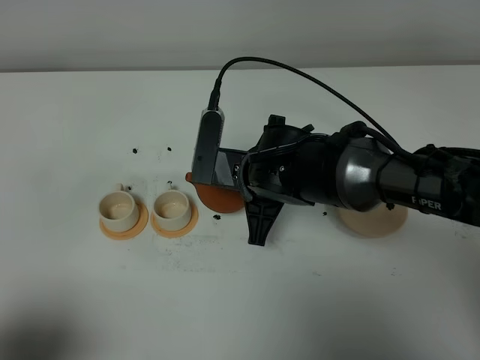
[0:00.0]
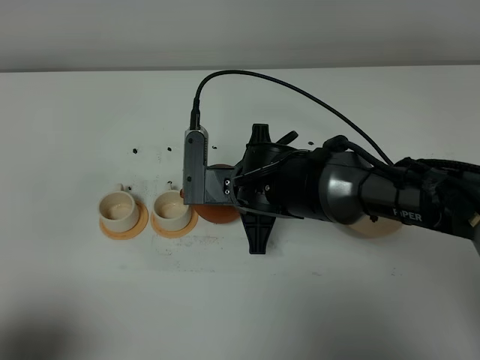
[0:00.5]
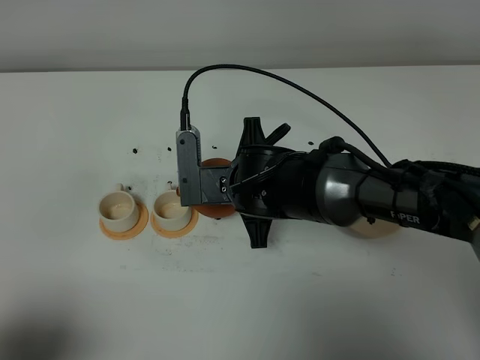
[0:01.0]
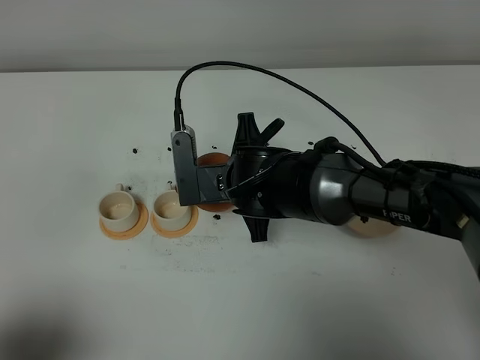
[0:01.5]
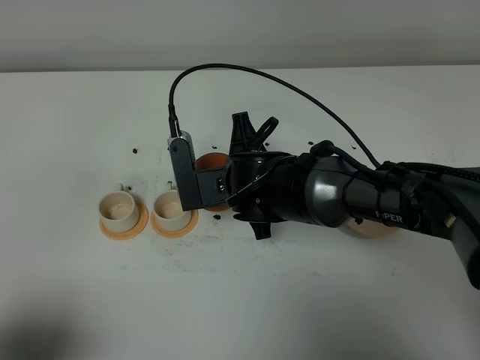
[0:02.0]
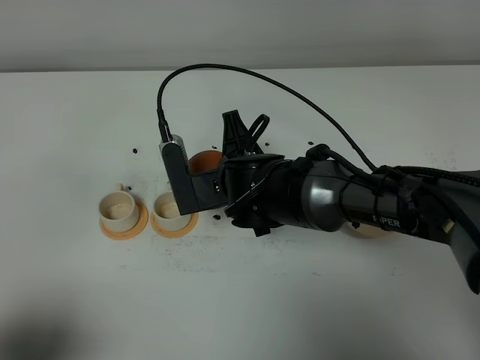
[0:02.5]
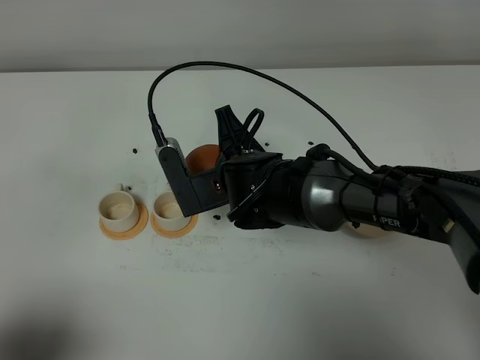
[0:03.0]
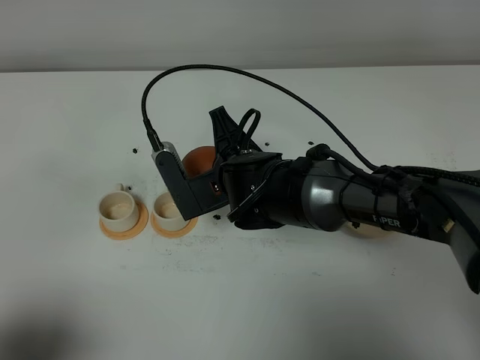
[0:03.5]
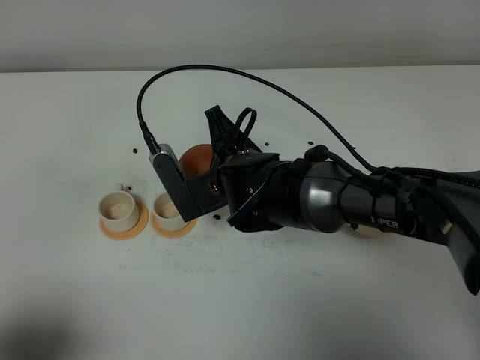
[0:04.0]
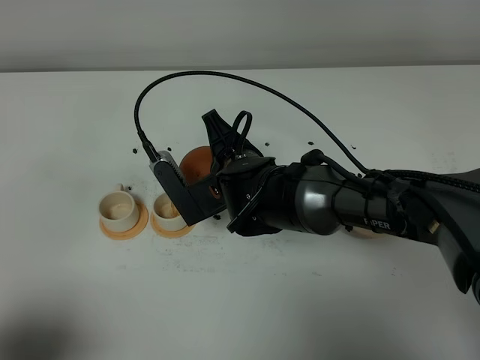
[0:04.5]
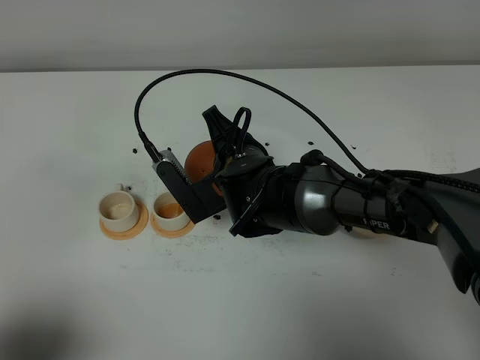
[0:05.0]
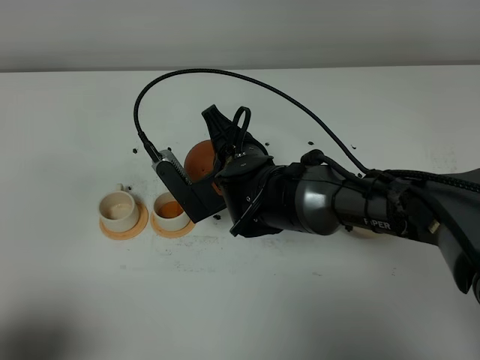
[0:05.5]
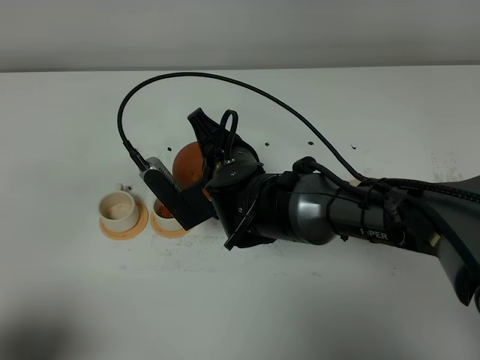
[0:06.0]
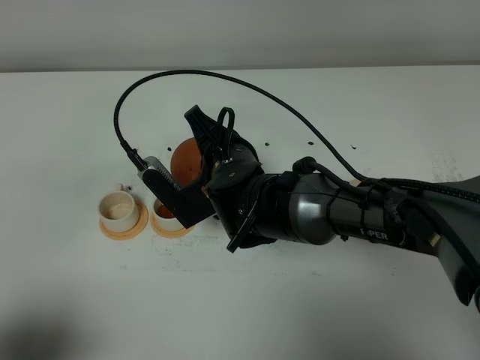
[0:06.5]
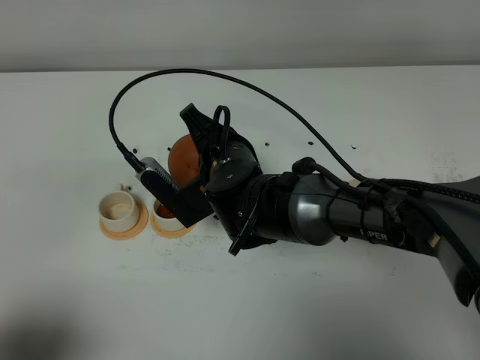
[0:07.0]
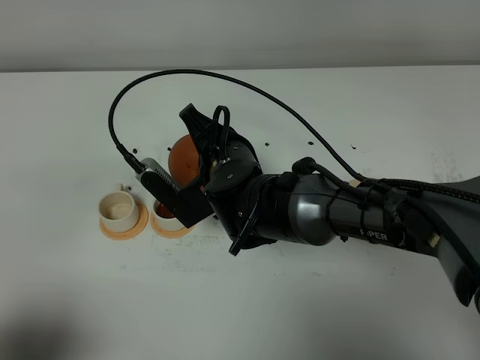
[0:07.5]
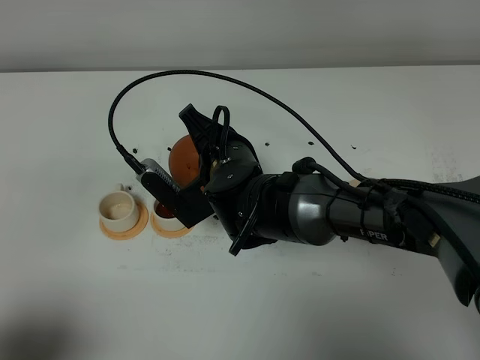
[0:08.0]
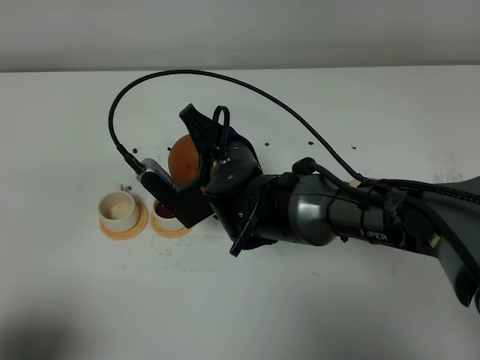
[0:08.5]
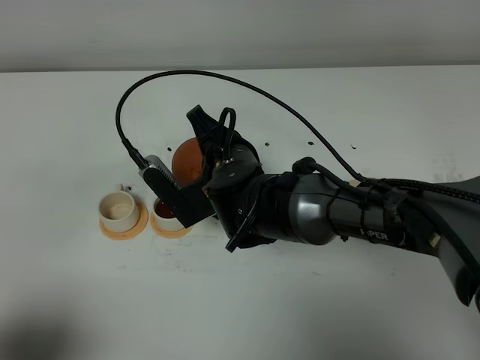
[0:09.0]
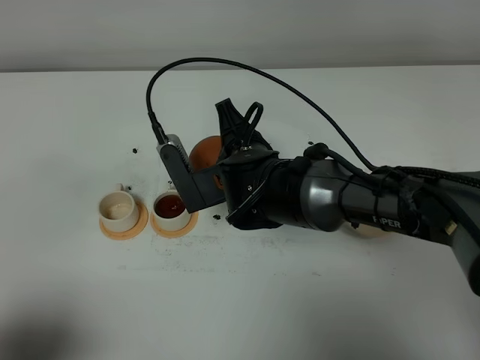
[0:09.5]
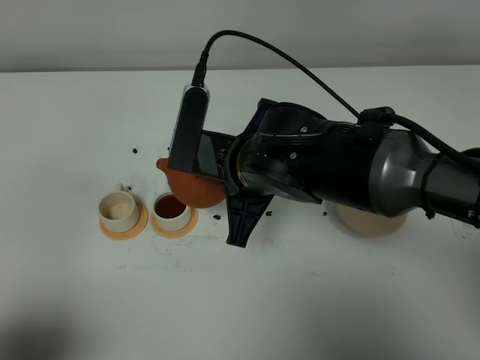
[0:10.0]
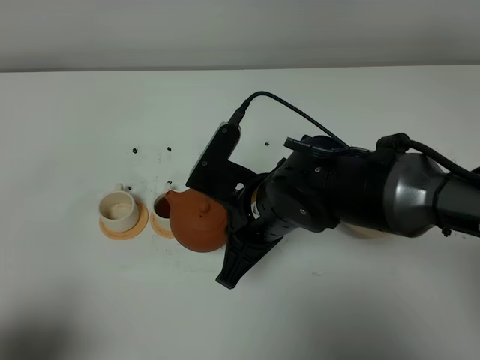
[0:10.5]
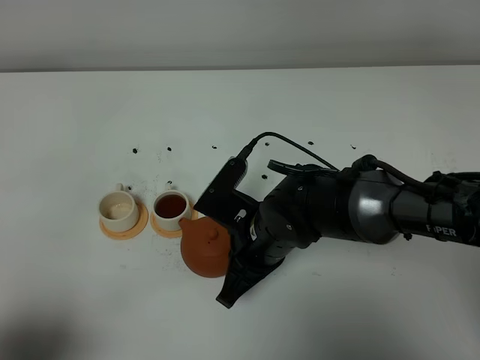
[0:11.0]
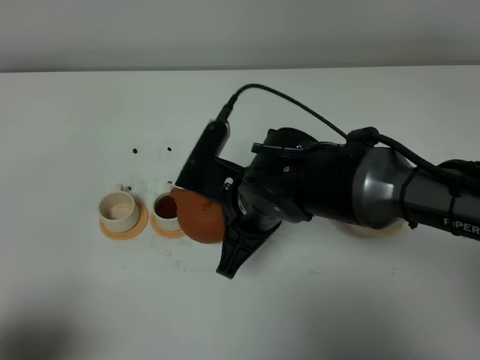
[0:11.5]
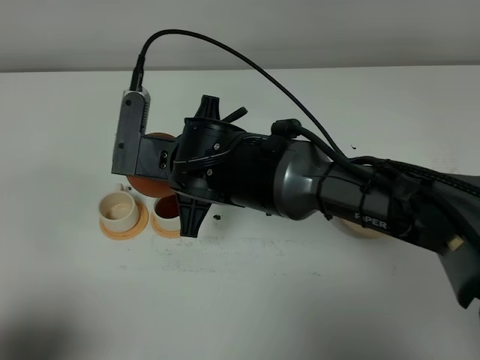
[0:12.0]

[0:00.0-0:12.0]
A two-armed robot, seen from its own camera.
Task of the whole recording: grasp the brown teapot and pour the tea into the two white teacups one by one, put the brown teapot back in its original place.
0:02.0 to 0:04.0: The grippers stay close to where they were, moving slightly.
0:04.0 to 0:08.0: There are only small adjustments of the grippers.
0:08.0 to 0:10.0: The right gripper travels upward by about 5 cm.
0:10.0 to 0:12.0: The right gripper moves to the left, approximately 5 cm, and reaches approximately 10 cm downward, then returns.

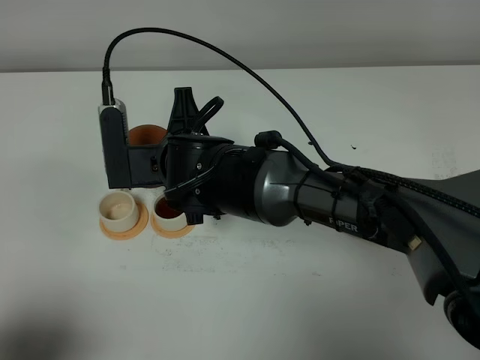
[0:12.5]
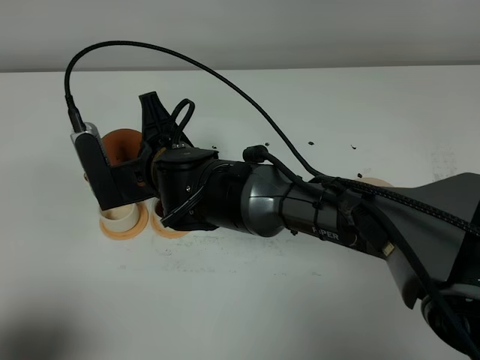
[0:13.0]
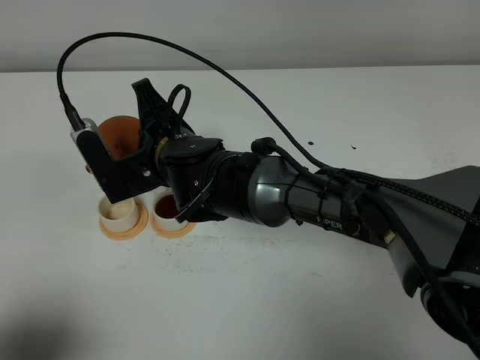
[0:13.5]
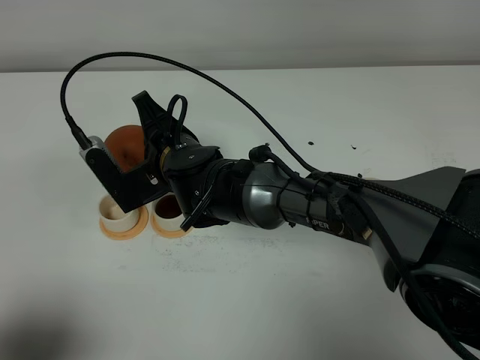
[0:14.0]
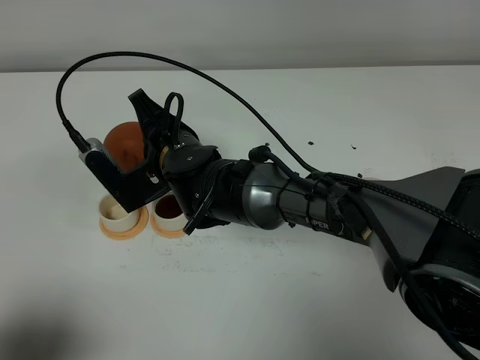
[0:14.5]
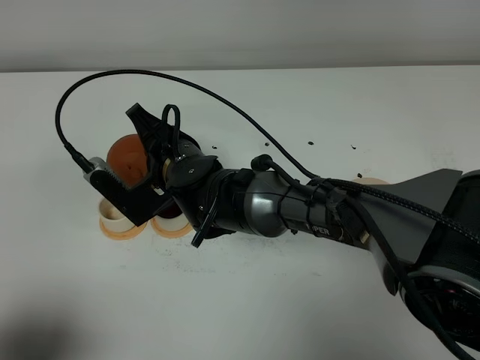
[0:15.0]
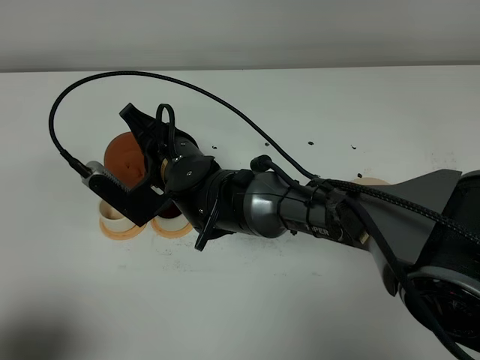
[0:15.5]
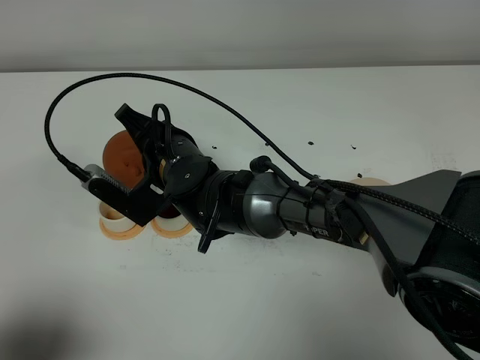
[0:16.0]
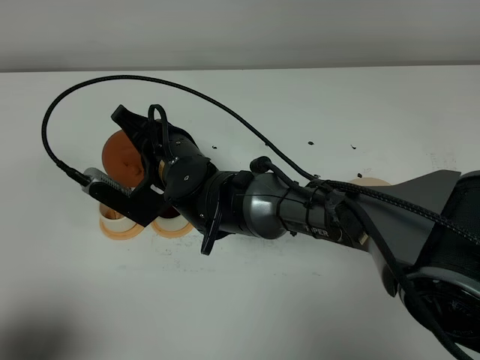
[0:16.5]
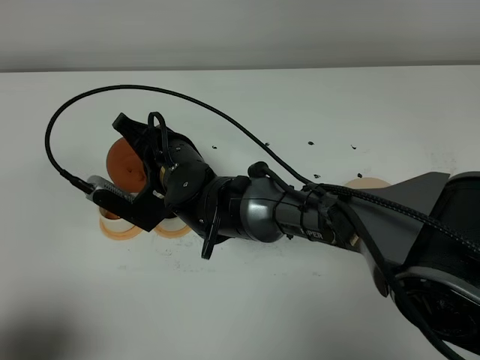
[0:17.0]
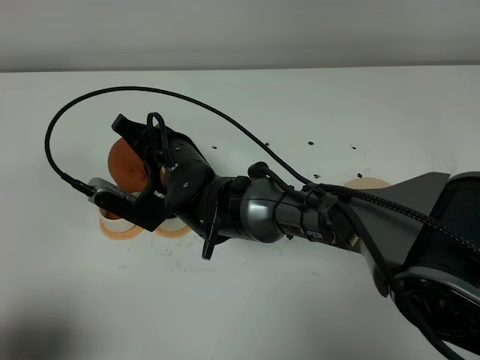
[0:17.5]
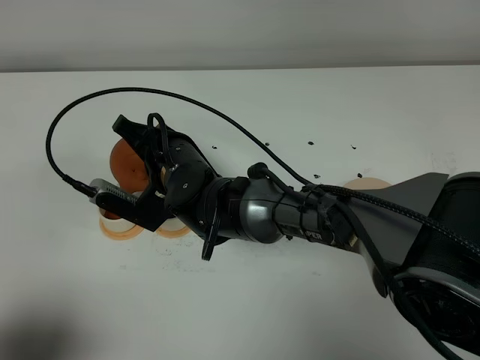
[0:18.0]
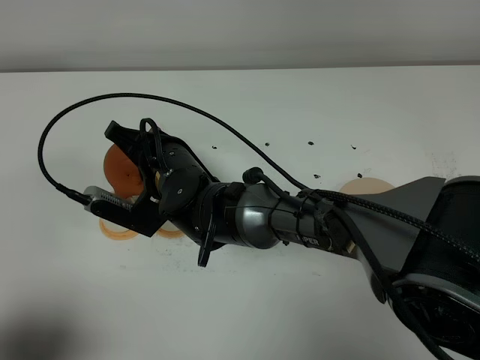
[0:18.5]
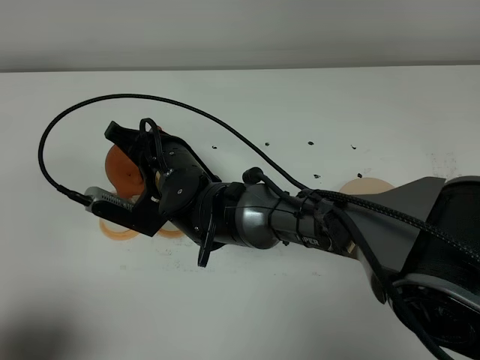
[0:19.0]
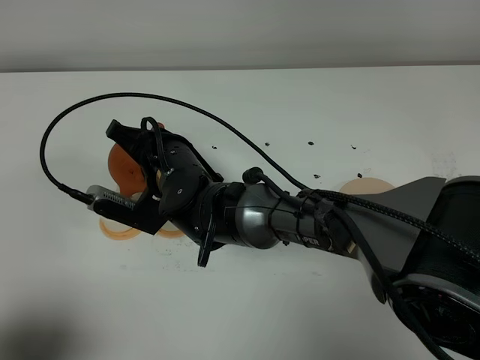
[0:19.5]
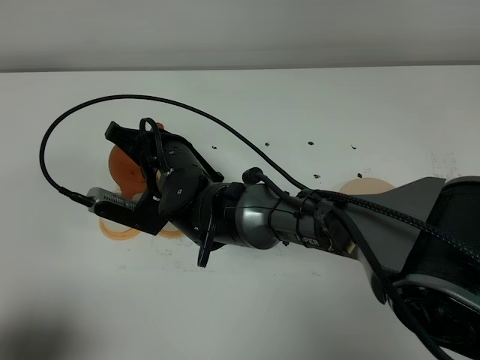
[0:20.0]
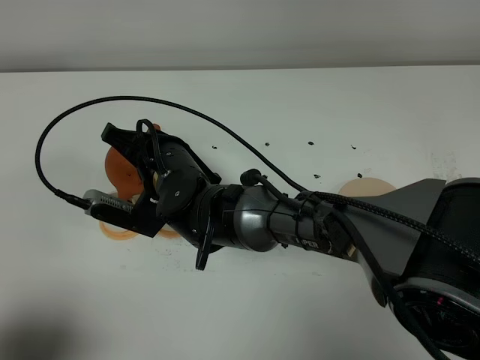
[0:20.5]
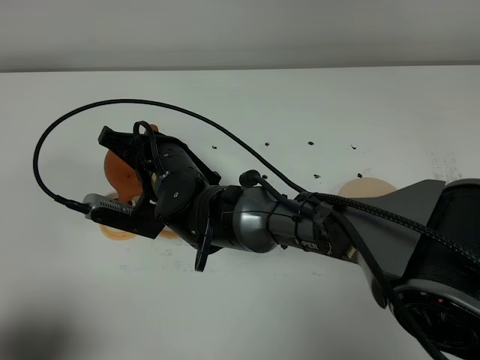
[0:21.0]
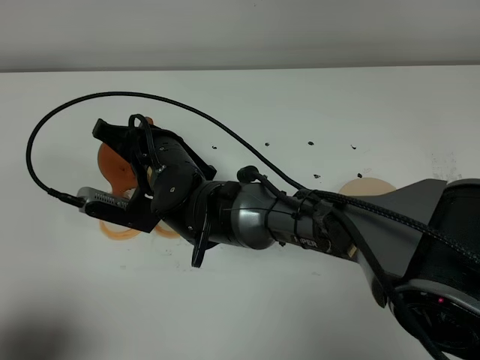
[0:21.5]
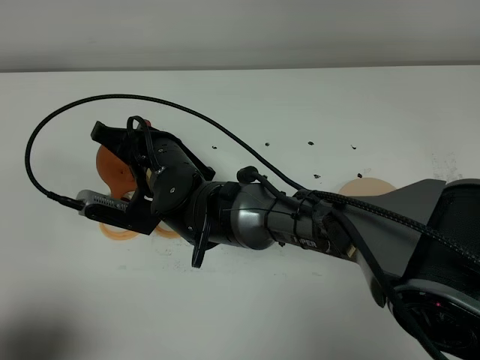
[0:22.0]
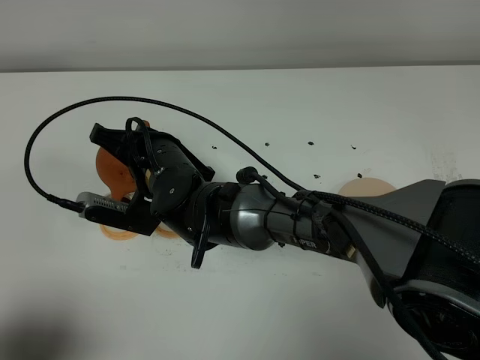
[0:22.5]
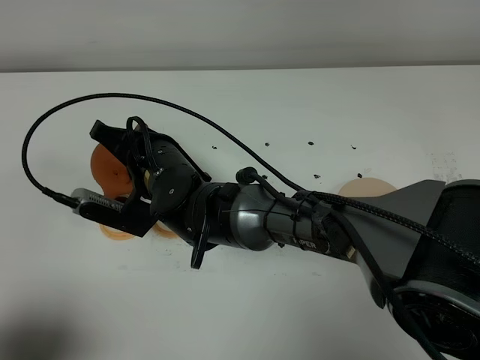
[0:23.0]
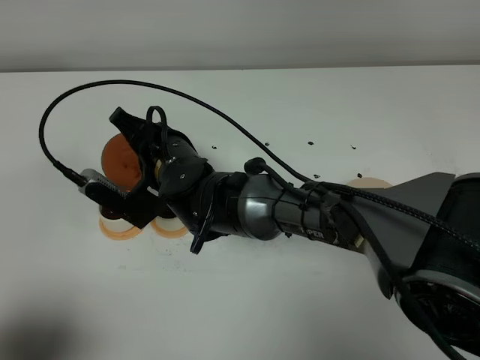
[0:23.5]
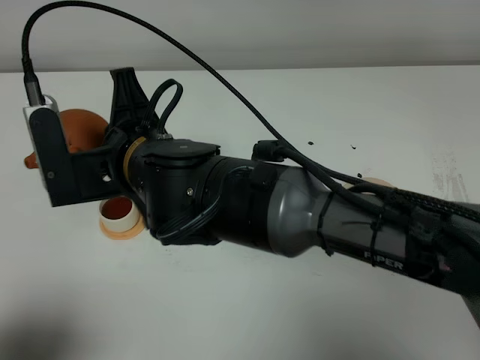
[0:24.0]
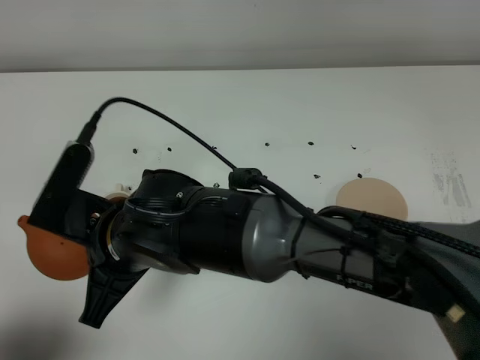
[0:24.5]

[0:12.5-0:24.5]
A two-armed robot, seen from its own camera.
Task of the whole recording: grasp the brown teapot and pour the tea into the two white teacups one by one, put the brown teapot back in its original place.
Step, 0:12.5 to 0:23.5: Pour tea into the teacup with the right gripper.
0:14.5 to 0:16.5: The grippers make only small movements.
0:16.5 to 0:18.5: The grippers move only a little.
0:18.5 to 0:20.5: Both grippers stay about where they are.
0:20.5 to 0:22.5: Both grippers stay about where they are.
0:22.5 to 0:24.5: The right gripper shifts some 10 cm backward.

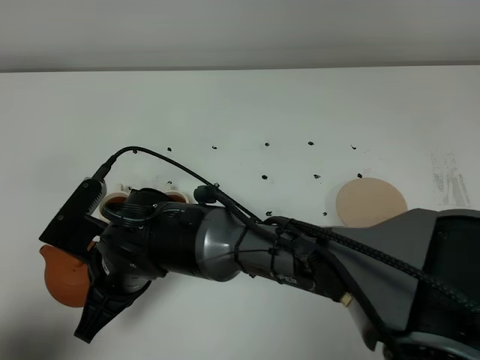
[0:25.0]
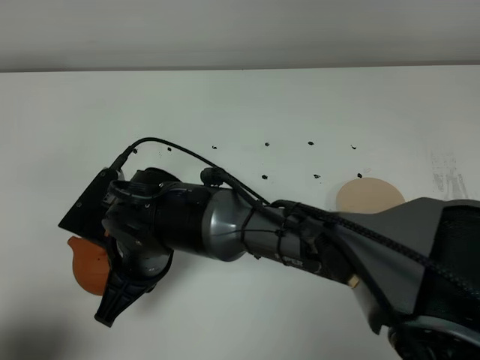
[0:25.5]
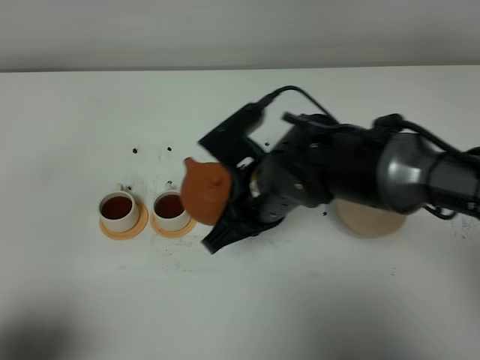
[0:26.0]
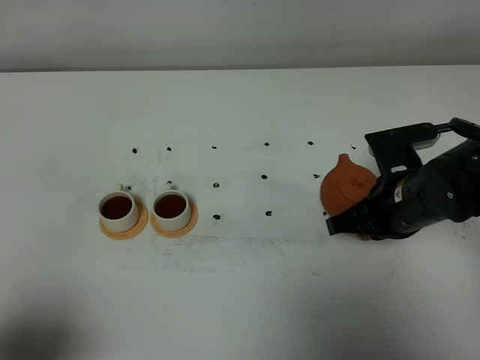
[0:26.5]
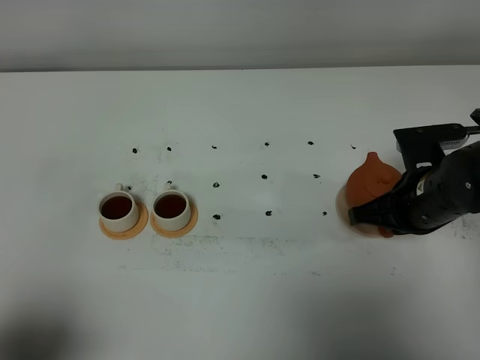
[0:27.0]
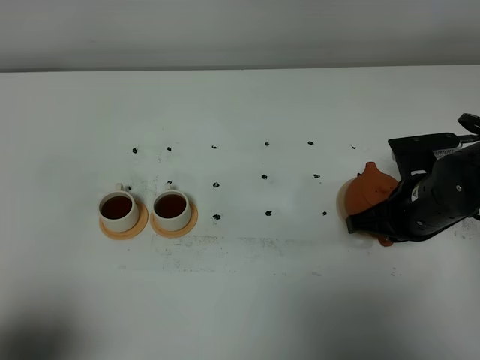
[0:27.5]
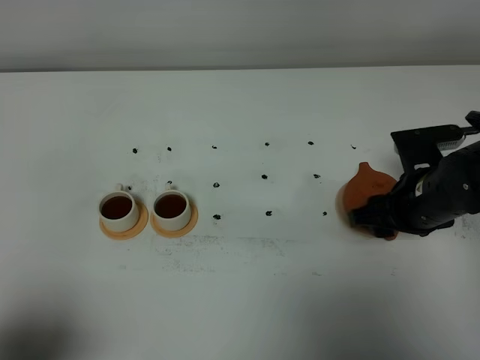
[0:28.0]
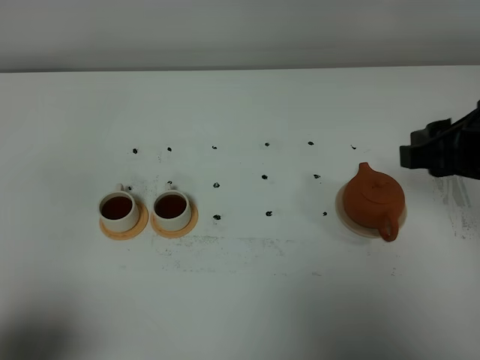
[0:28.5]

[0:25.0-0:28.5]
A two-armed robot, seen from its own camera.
Task of the whole recording: grasp the brown teapot and pour the tea into the two white teacups one by one, put the brown teapot back in its original place.
0:25.0 to 0:27.0: The right gripper travels to the right by about 35 cm.
0:27.0 to 0:28.5: The right gripper moves upward, about 15 cm, and opens its fingers.
